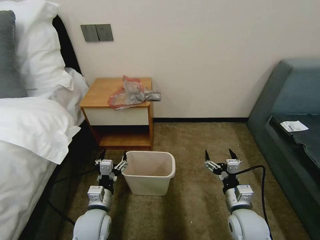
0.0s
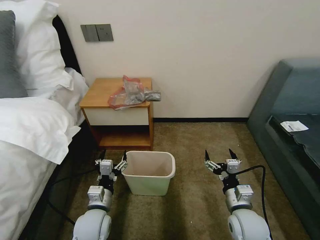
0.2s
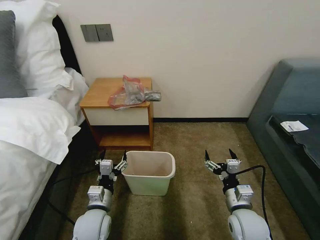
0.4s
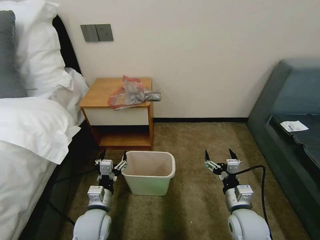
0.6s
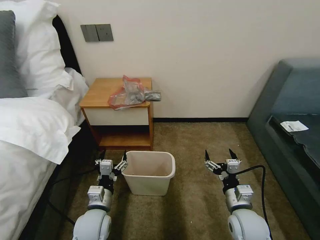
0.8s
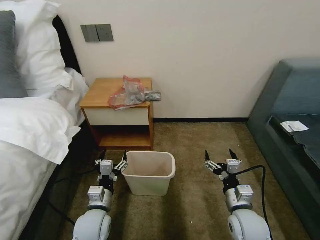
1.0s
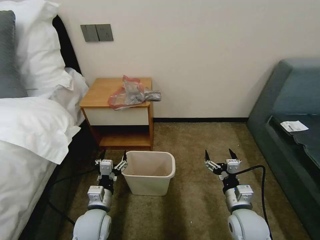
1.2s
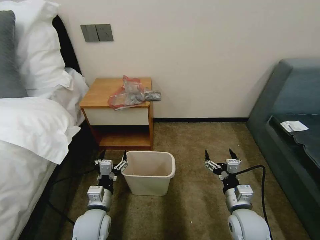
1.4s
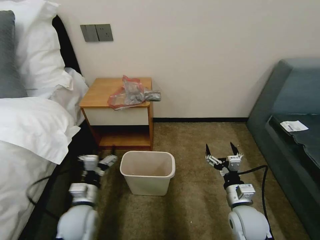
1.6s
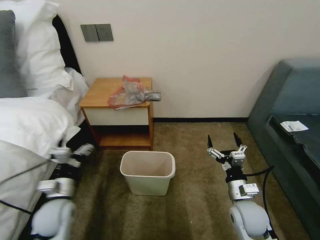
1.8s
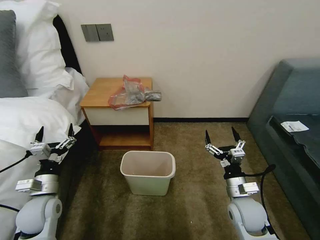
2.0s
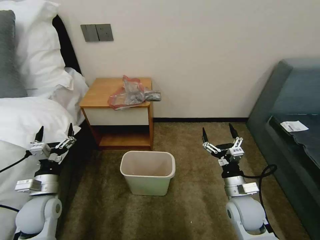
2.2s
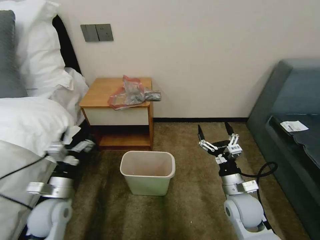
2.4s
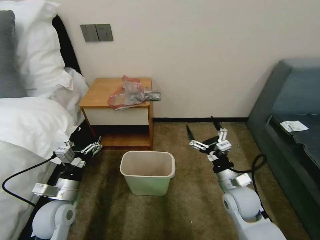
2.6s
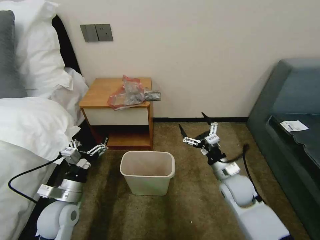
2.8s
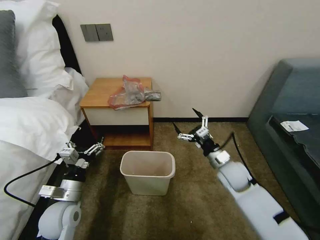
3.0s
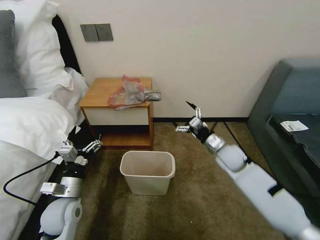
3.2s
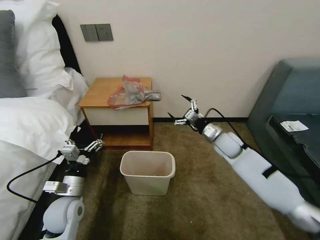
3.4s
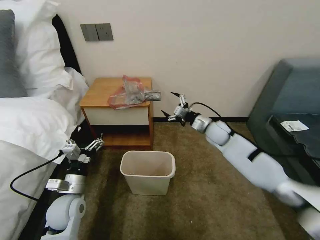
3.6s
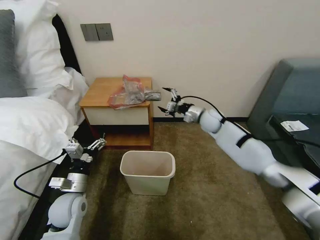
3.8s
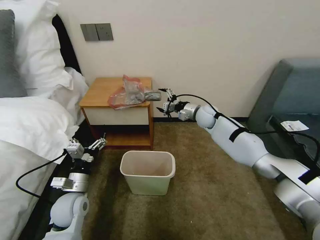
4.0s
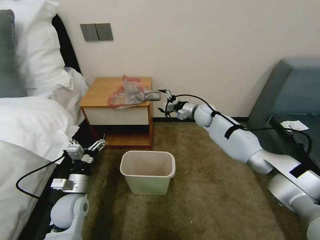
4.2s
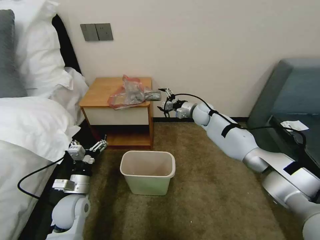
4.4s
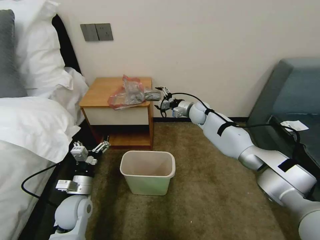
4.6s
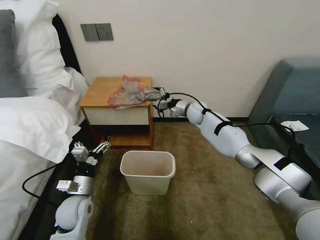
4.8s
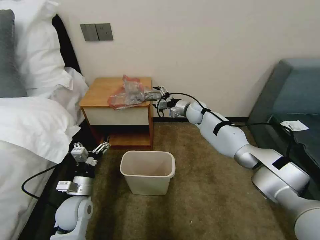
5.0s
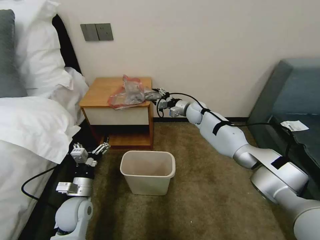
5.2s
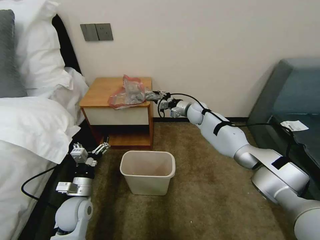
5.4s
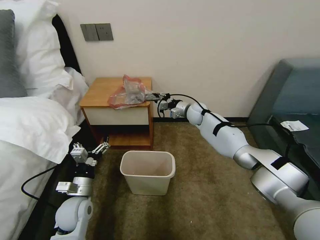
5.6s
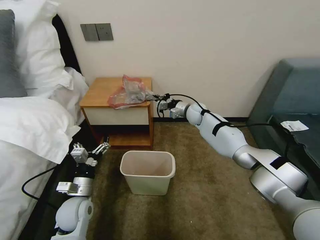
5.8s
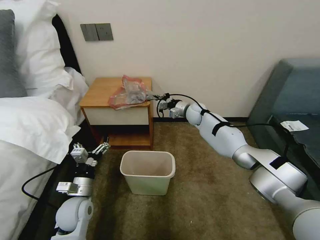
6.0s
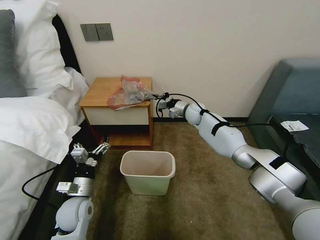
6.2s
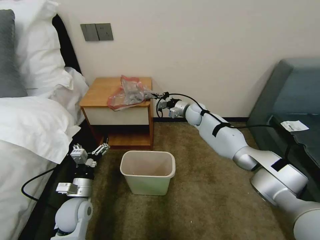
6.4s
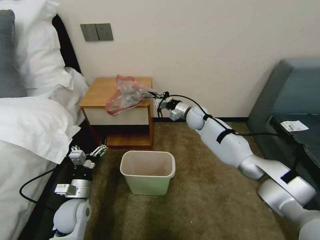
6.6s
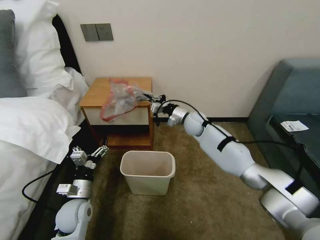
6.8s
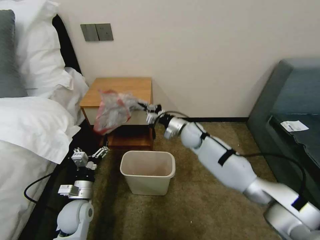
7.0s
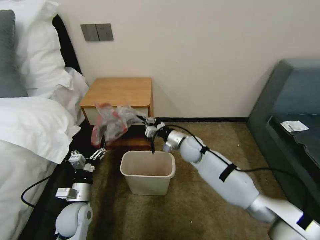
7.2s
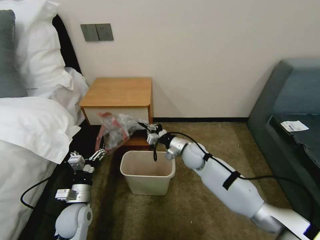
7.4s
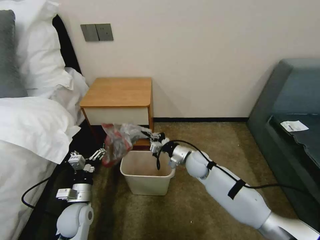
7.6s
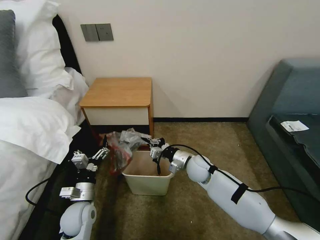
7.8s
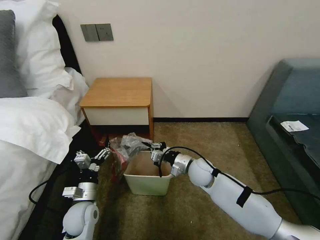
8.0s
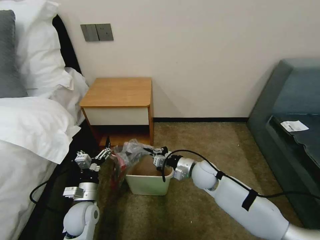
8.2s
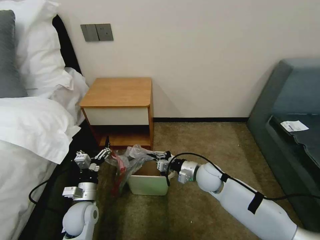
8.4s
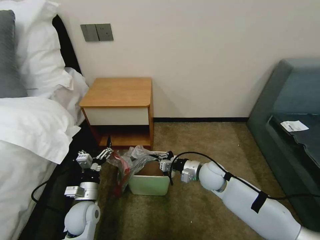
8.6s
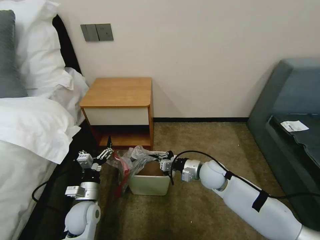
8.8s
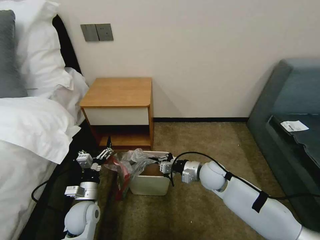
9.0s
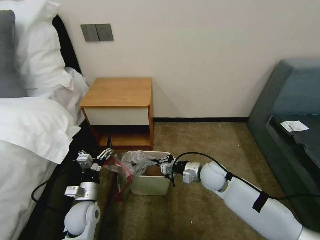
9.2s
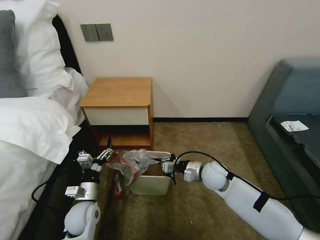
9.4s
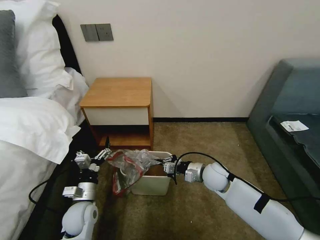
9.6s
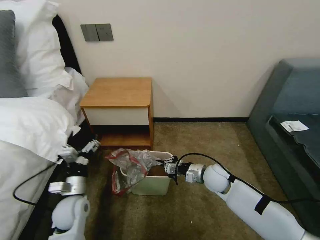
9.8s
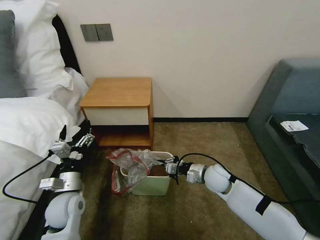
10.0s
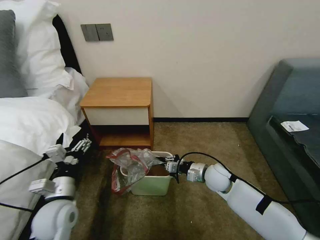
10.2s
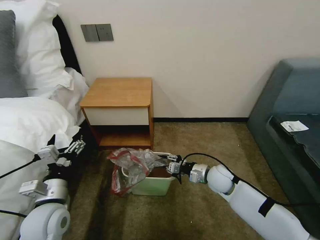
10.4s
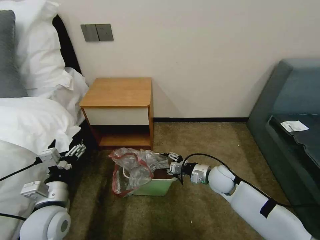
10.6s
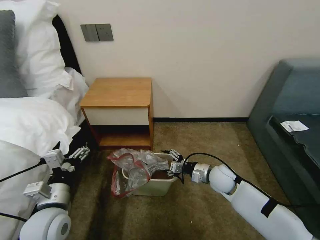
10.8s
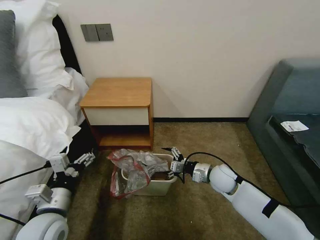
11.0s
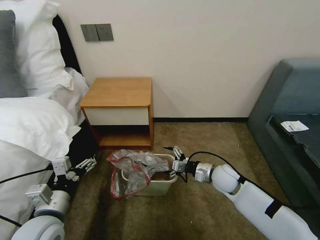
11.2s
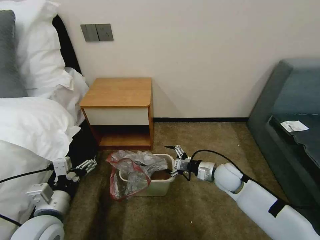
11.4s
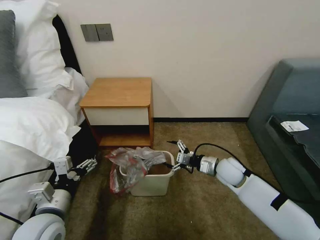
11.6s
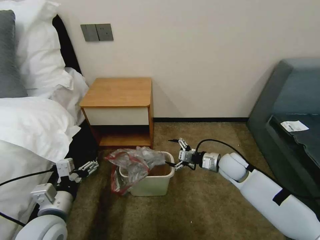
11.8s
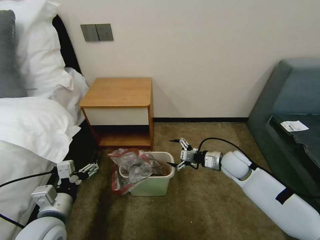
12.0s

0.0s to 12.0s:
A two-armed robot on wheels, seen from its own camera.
Task of the whole recording: Pick up the garbage bag from the table and place it over the trash can.
1.6s to 3.0s: The right gripper heads forward, covering some 15 cm.
3.0s to 4.4s: The right gripper heads forward, covering approximately 25 cm.
4.4s to 6.0s: The right gripper closes up.
6.0s to 7.6s: The right gripper travels backward and downward by approximately 20 cm.
7.6s to 9.0s: The right gripper changes place by some 5 cm.
9.0s to 10.4s: The left gripper goes about 10 cm upward.
10.4s to 12.0s: The right gripper heads upward and to the right, covering approximately 5 cm, and opens its fingers.

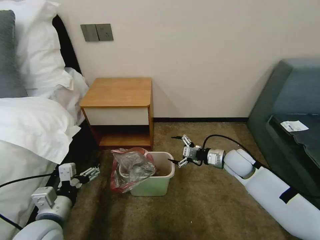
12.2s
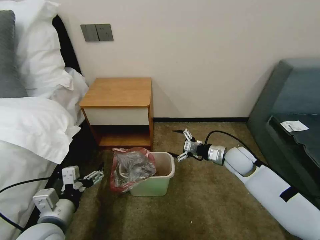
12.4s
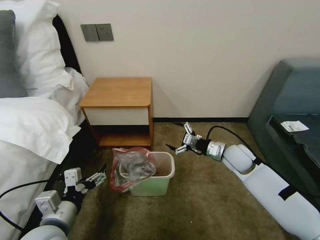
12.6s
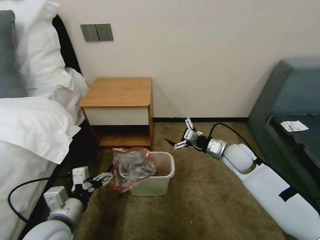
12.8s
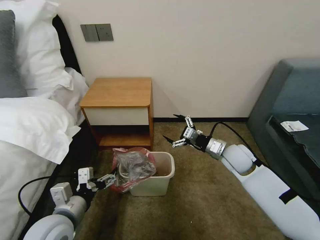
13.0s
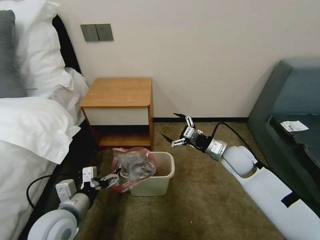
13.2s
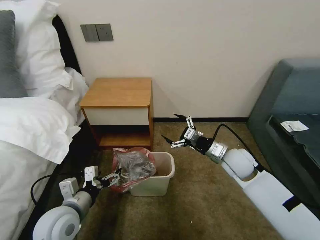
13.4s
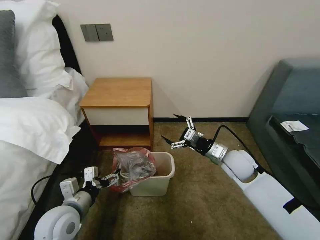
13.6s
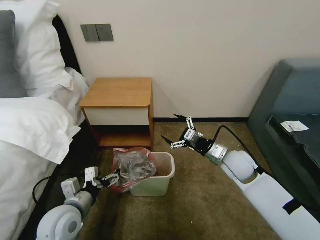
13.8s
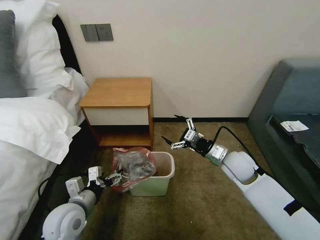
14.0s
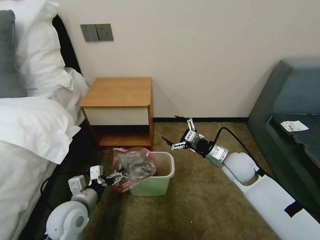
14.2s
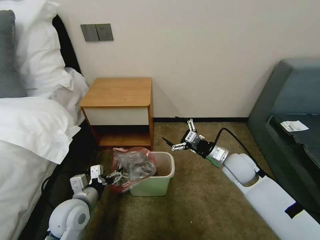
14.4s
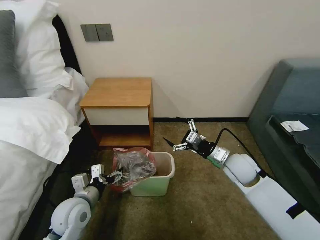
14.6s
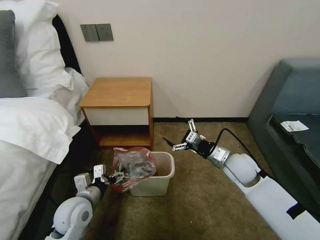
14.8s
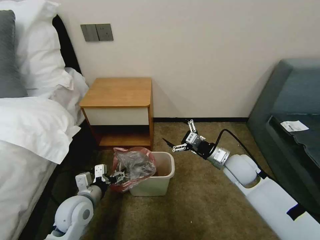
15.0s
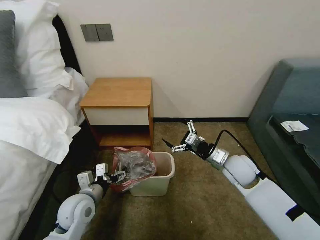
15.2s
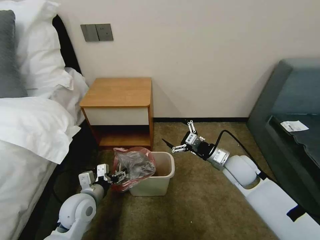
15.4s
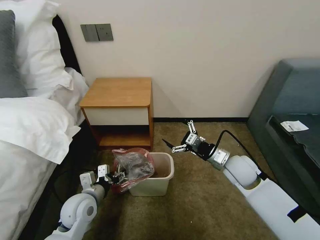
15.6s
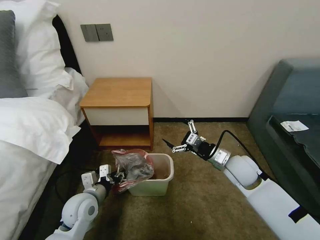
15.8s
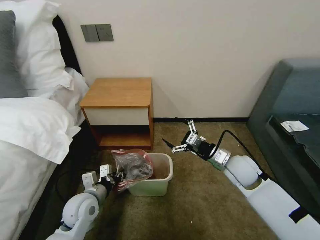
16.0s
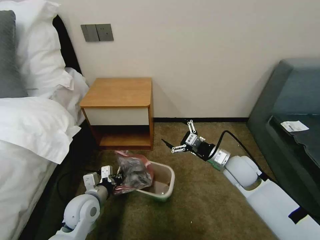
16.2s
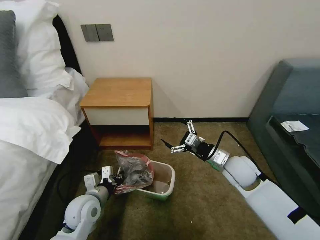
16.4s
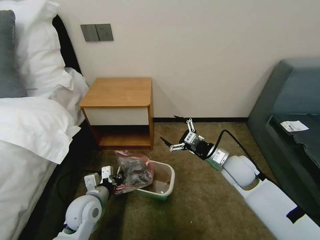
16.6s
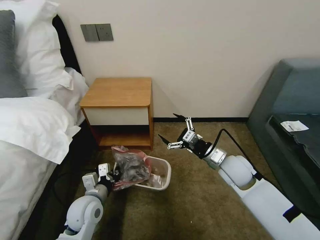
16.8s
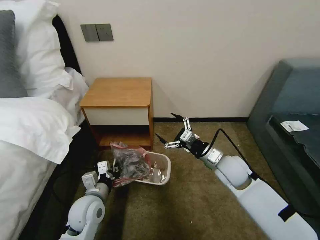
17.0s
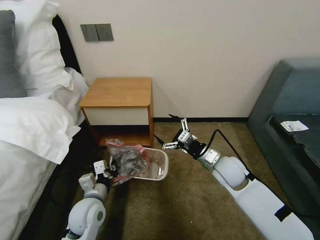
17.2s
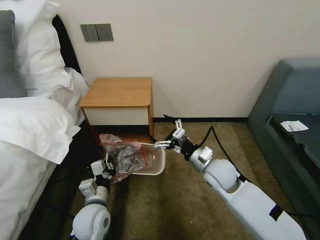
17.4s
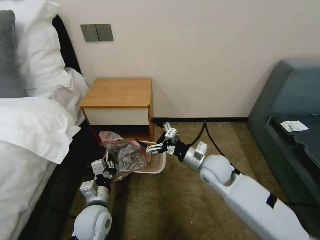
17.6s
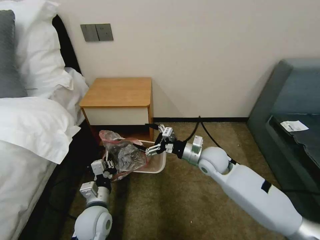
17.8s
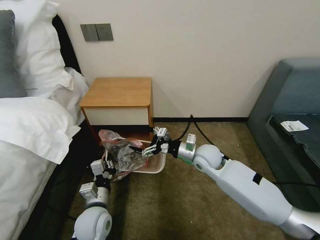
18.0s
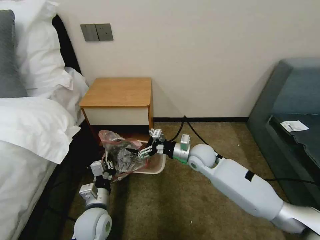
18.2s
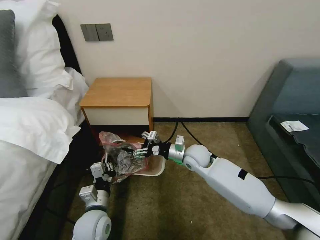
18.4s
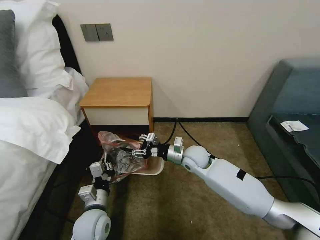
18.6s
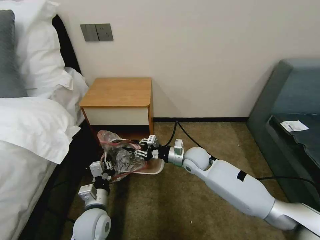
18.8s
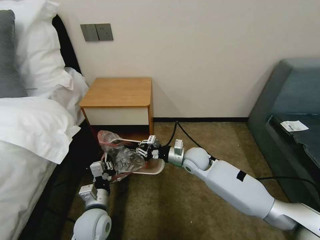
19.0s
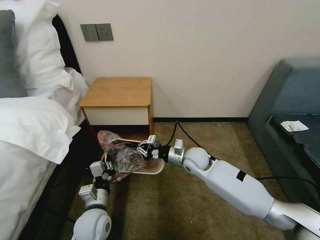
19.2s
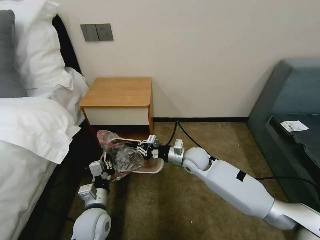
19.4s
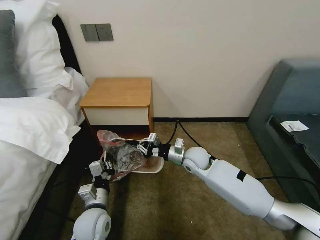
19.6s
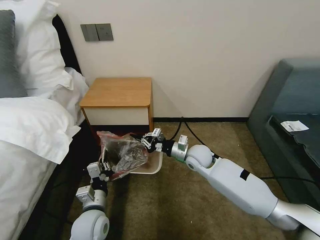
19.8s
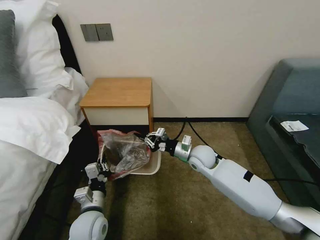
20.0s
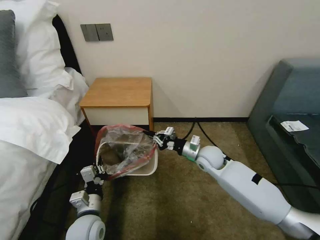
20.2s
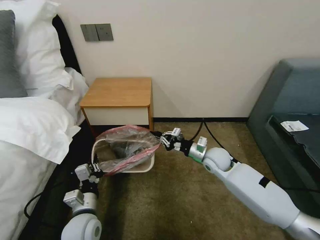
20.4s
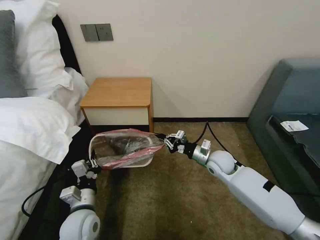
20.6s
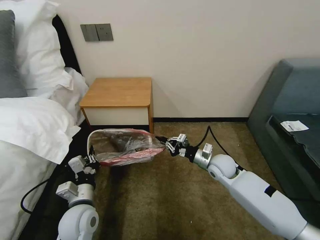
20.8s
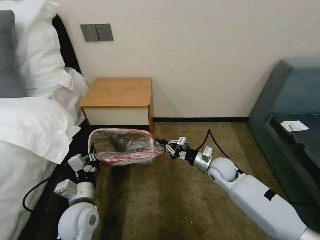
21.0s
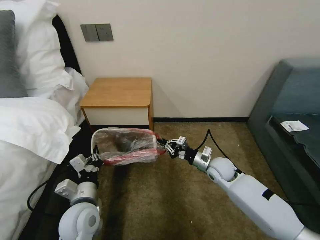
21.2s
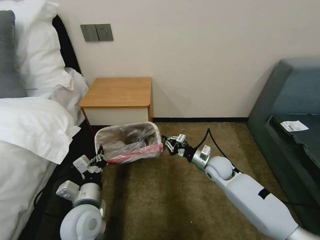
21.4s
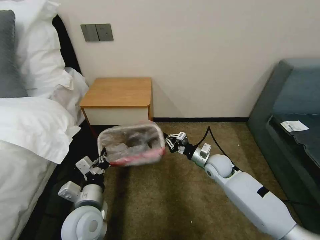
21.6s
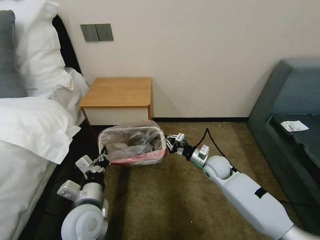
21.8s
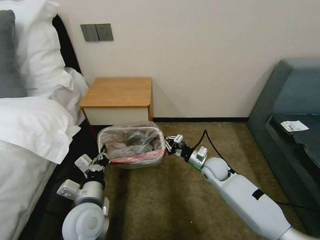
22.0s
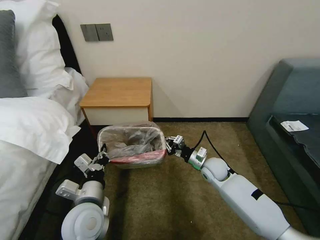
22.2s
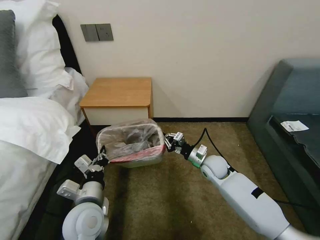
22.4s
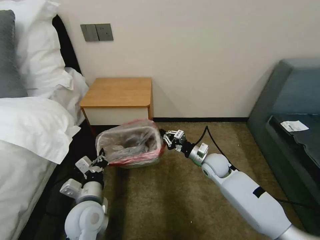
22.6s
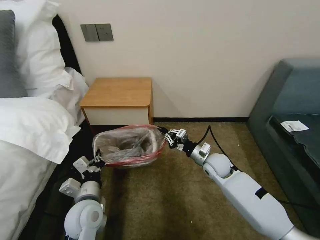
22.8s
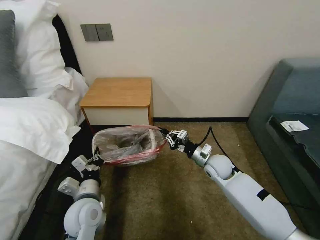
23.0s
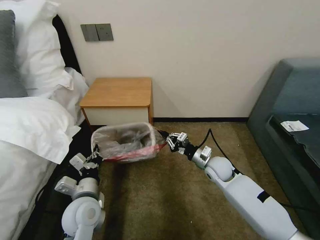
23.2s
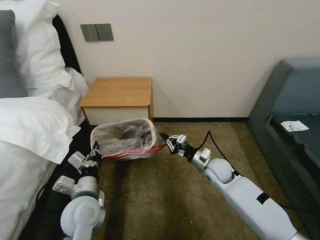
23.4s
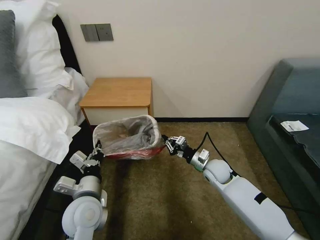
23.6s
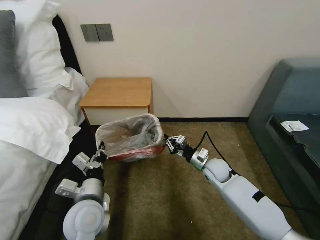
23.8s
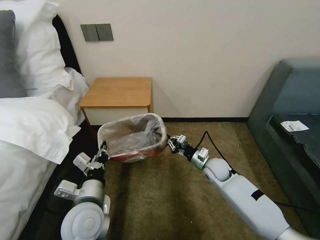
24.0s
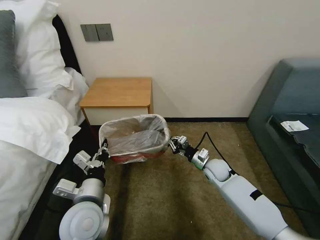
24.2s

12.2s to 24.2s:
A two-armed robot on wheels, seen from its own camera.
Task of the whole recording: Pick up the garbage bag from the table and place it over the trash can.
12.2s to 13.8s: The left gripper changes place by roughly 5 cm; the right gripper moves about 5 cm.
13.8s to 15.2s: The left gripper moves roughly 5 cm.
15.2s to 16.6s: The left gripper closes its fingers.
16.6s to 18.2s: The left gripper shifts by some 5 cm; the right gripper travels to the left and forward by some 10 cm.
18.2s to 19.8s: The right gripper closes its fingers.
19.8s to 21.2s: The left gripper goes roughly 5 cm upward. Meanwhile the right gripper is displaced to the right by roughly 10 cm.
21.2s to 22.6s: The grippers move only a little.
22.6s to 24.2s: The left gripper moves upward, approximately 5 cm.
